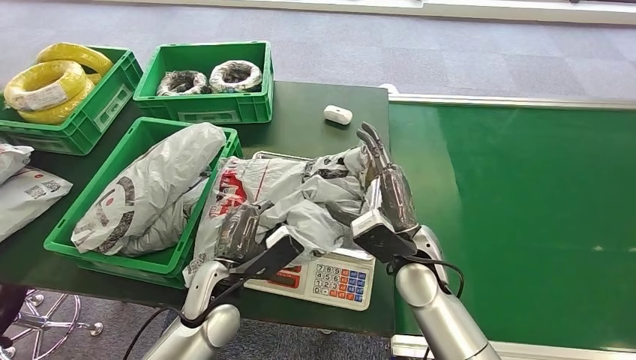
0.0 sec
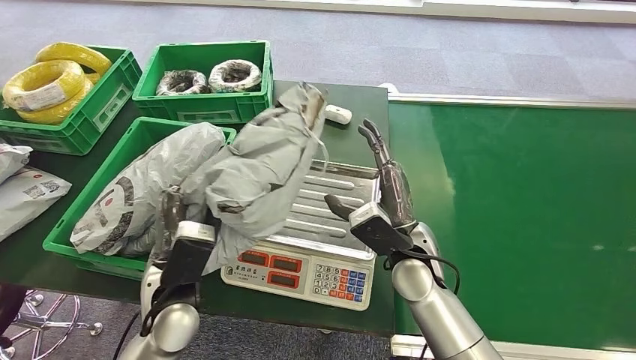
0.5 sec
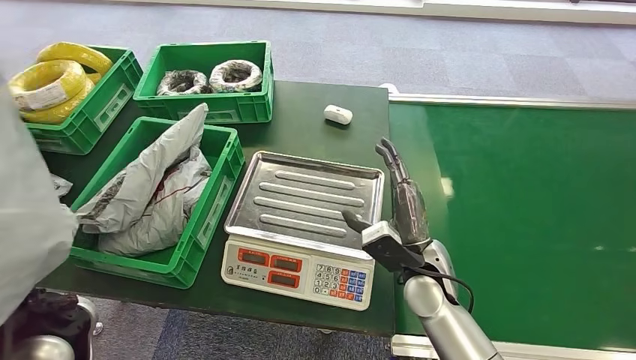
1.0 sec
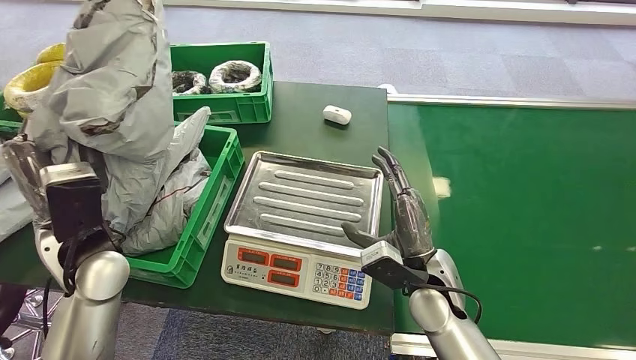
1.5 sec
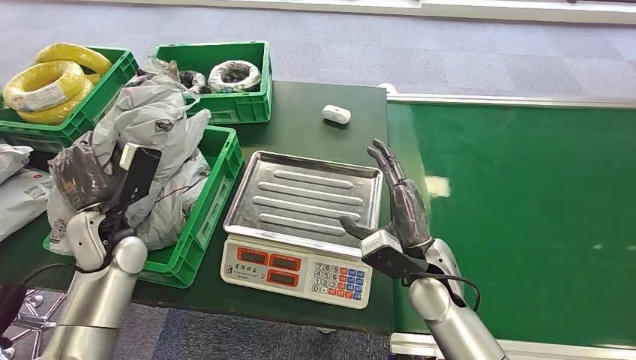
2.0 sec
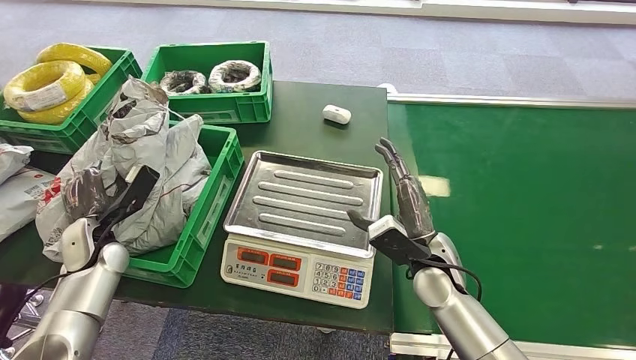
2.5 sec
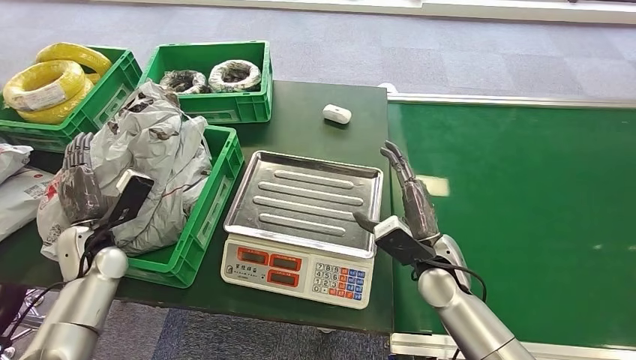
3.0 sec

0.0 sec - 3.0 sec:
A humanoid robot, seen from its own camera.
Step, 1.0 sec - 3.0 sec: Place the package into the parcel locker.
